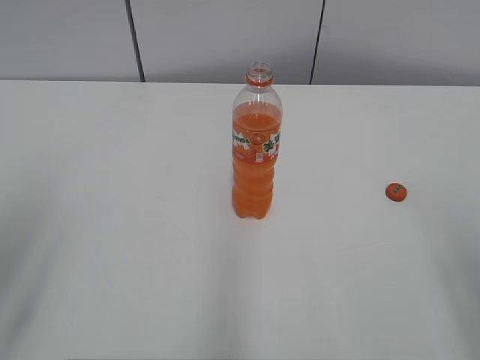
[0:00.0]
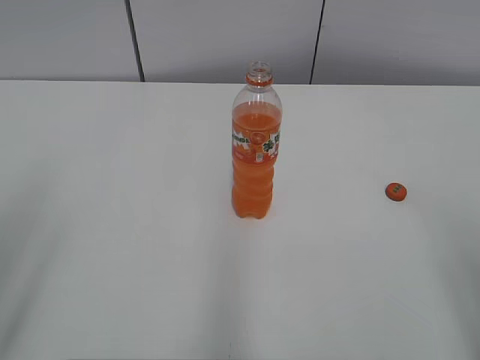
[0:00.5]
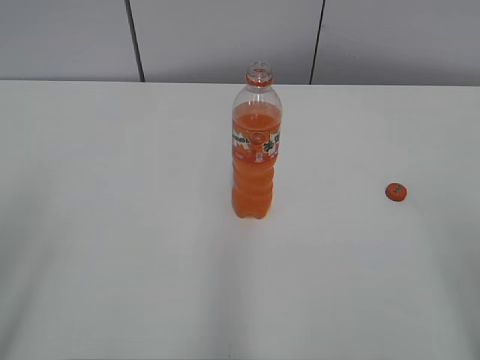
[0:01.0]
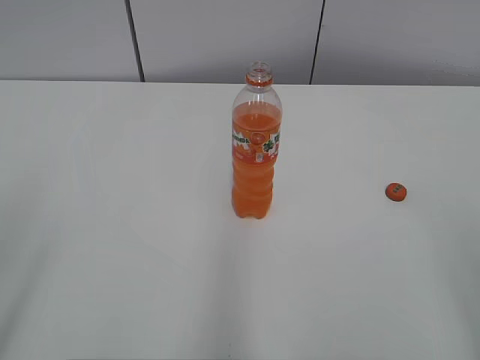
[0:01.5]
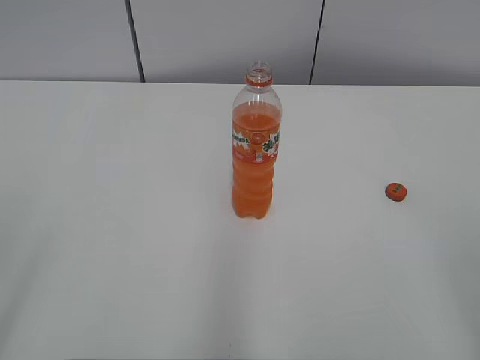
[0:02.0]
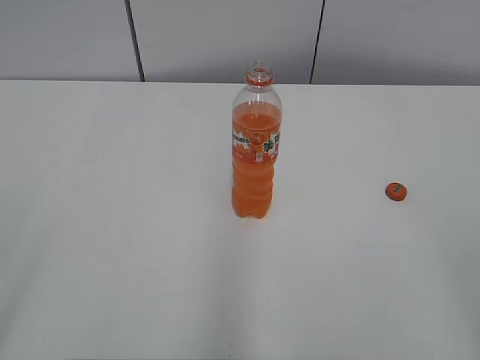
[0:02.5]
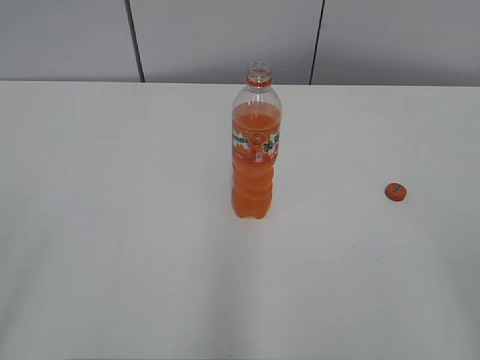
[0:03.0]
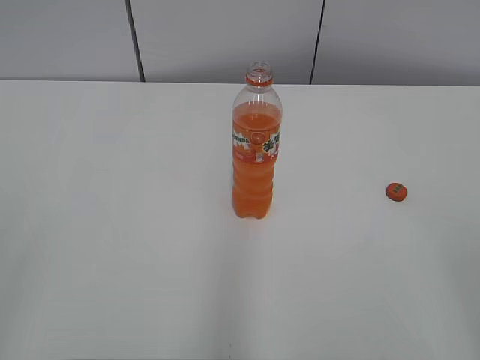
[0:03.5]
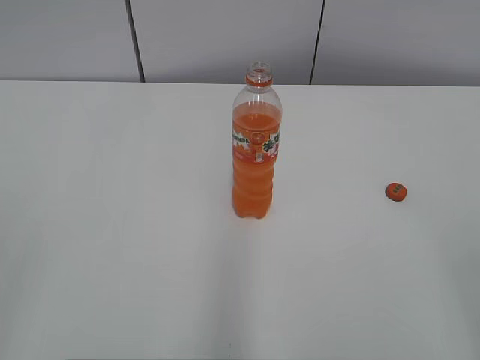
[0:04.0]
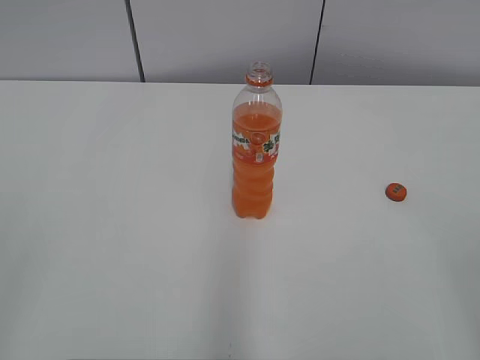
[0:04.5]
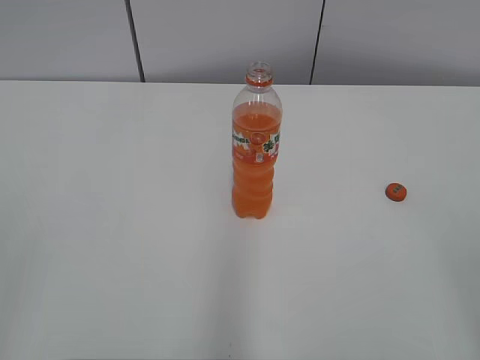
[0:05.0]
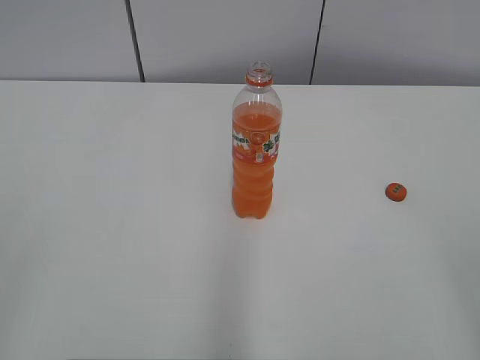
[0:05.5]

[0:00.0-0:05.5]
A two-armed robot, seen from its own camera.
0:03.5 to 0:05.5: The two grippers keep their place.
